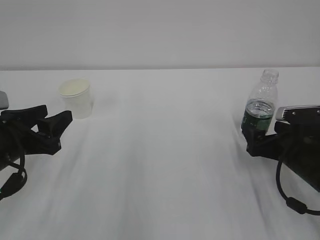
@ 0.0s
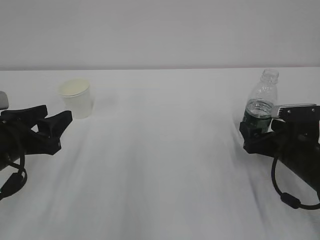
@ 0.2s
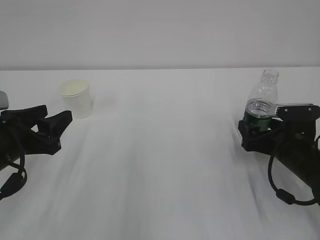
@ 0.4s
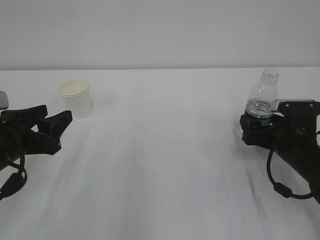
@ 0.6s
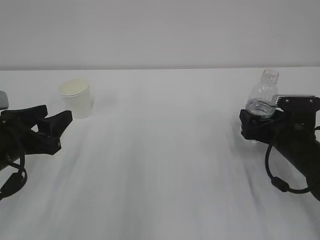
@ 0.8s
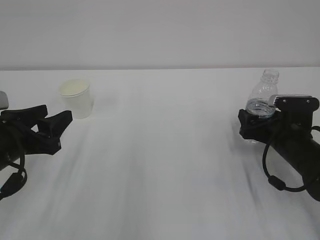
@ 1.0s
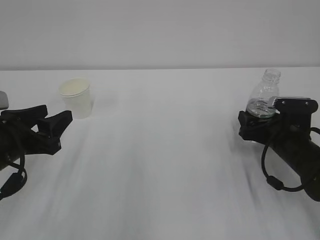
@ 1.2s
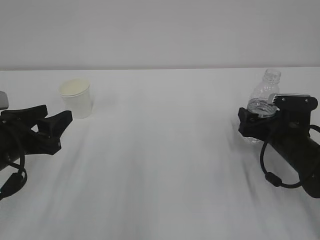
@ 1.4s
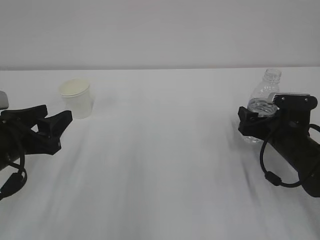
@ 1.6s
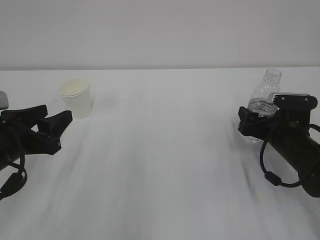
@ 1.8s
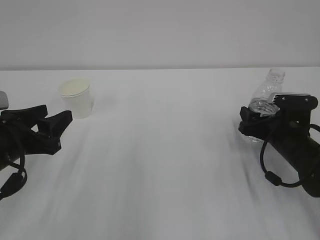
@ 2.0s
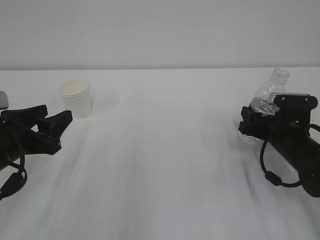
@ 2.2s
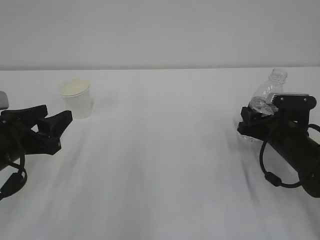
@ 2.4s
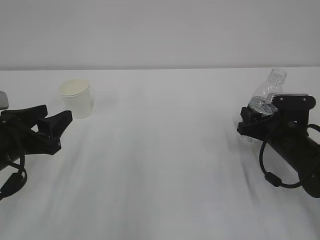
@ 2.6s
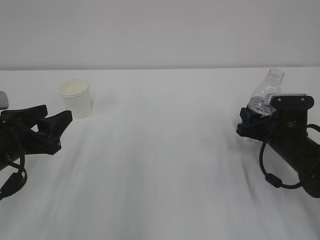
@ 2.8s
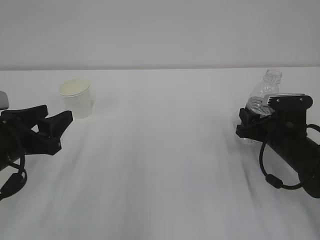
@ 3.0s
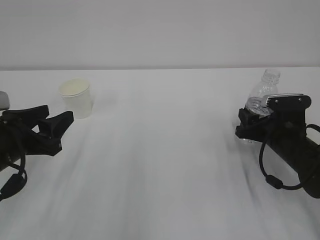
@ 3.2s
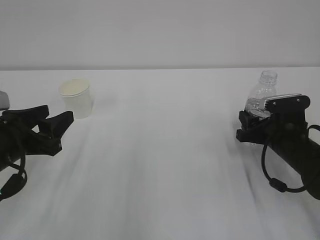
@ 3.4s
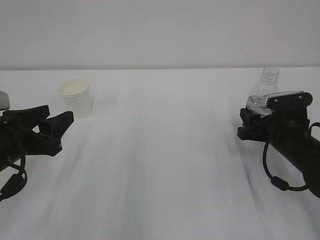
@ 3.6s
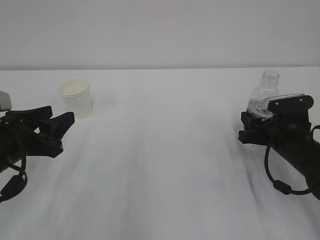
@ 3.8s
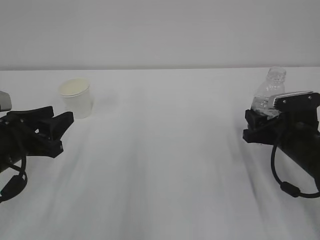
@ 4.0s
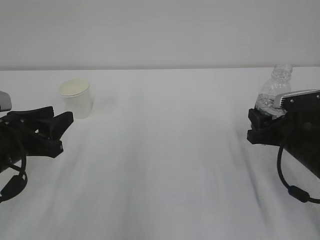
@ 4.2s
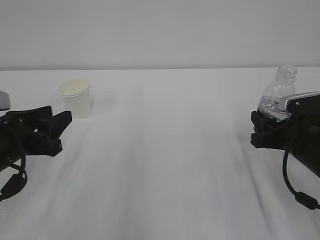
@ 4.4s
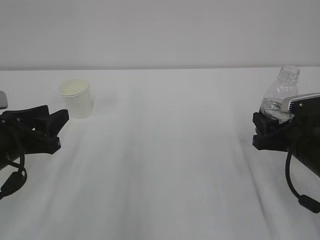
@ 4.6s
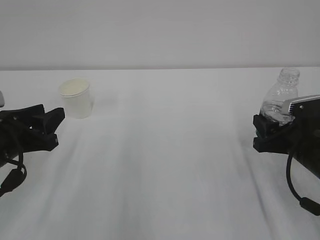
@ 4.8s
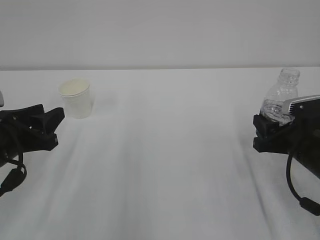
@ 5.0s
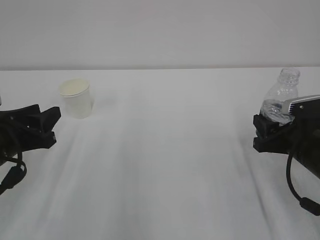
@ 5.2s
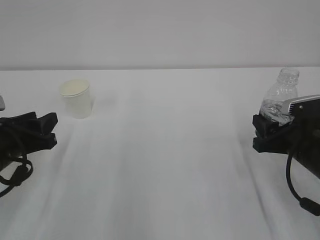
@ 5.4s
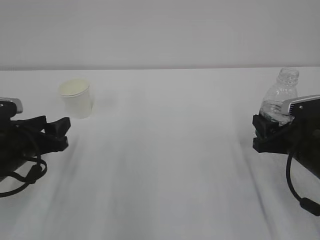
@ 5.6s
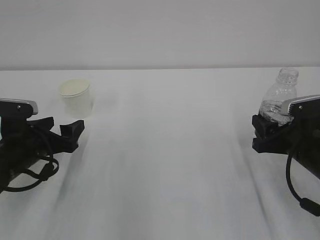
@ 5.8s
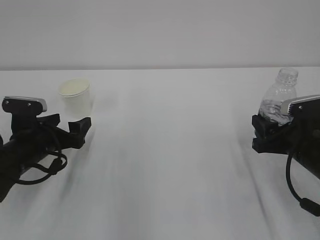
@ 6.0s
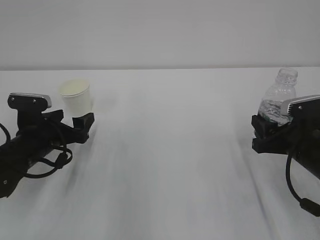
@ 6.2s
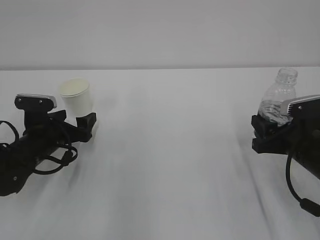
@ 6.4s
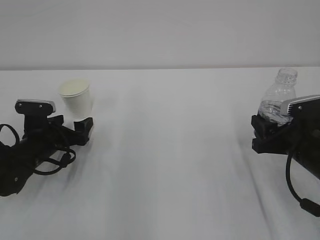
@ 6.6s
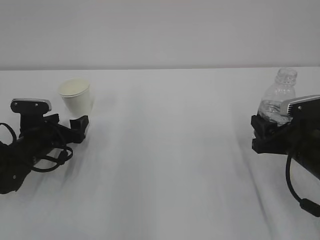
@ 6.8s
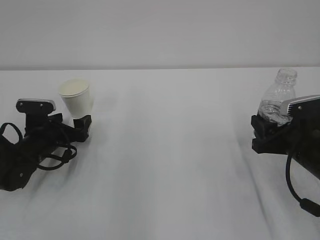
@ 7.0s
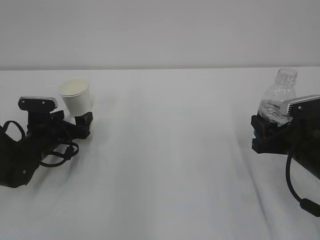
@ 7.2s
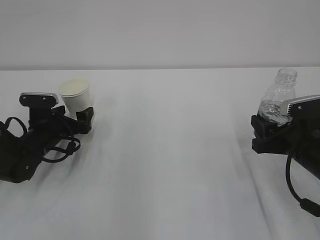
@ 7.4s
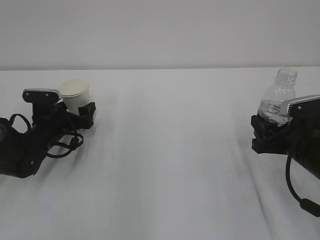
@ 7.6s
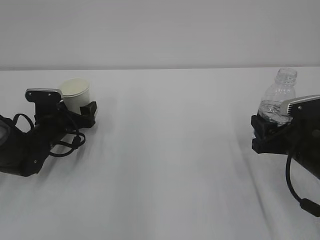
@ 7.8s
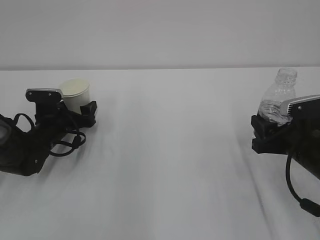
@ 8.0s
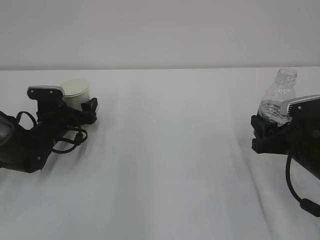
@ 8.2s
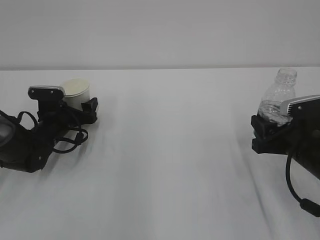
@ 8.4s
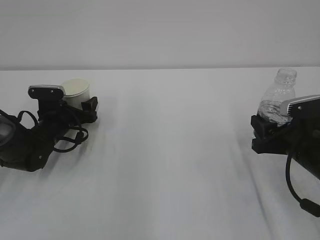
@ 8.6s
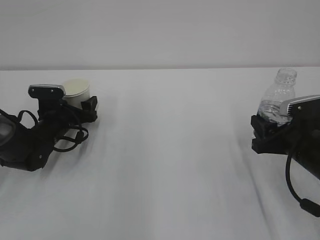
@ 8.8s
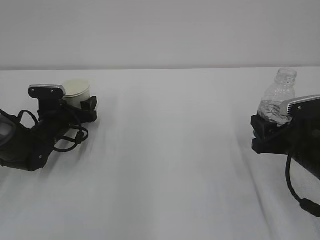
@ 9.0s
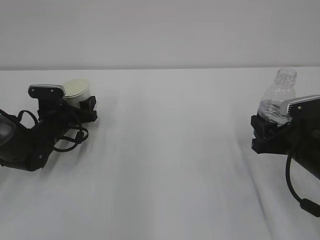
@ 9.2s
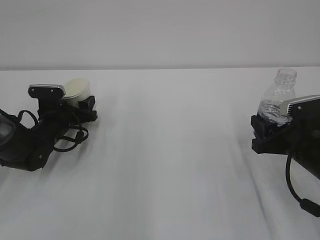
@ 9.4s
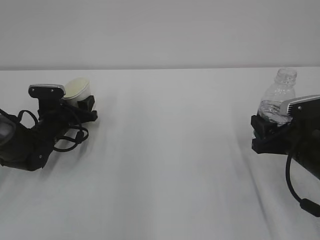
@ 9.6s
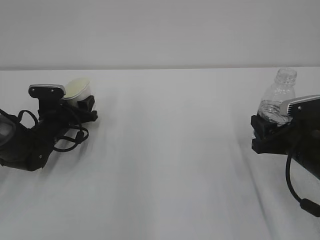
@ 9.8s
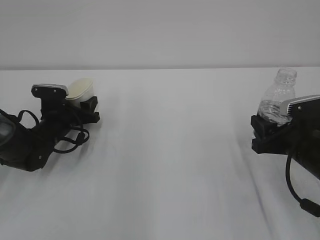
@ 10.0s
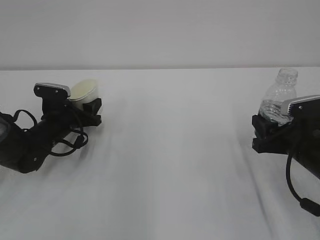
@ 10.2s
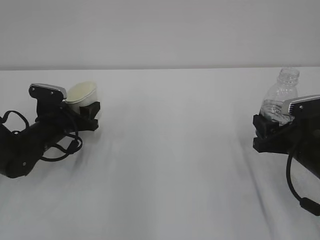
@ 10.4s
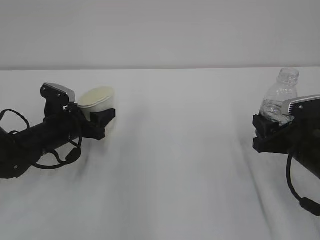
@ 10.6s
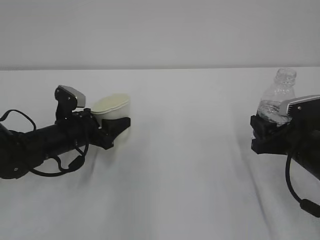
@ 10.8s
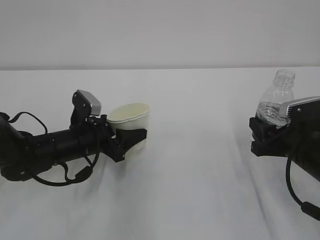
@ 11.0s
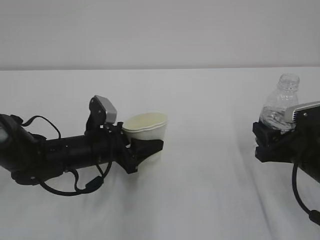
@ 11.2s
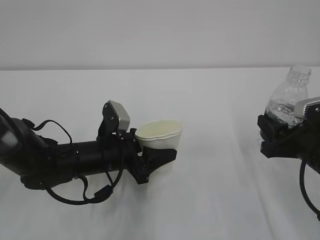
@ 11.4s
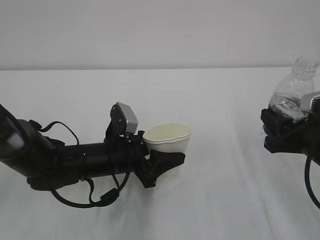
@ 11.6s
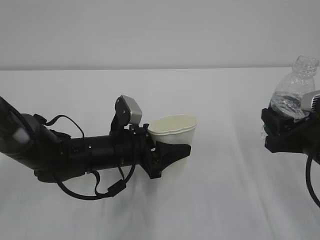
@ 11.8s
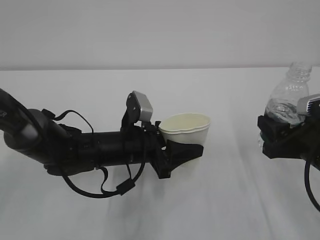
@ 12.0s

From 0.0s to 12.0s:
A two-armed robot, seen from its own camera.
From 0.0s to 1.6s: The right gripper shifts by approximately 5 cm.
From 1.6s to 3.0s: The right gripper closes up.
From 3.0s to 4.4s: The right gripper travels backward by some 5 cm.
From 4.4s to 6.0s: The left gripper heads forward and downward, covering about 10 cm, and opens up.
From 6.0s to 7.6s: The left gripper goes approximately 10 cm forward.
From 7.6s to 9.0s: The grippers move only a little.
From 9.0s to 10.4s: The left gripper closes its fingers.
From 10.4s to 12.0s: The left gripper shifts approximately 20 cm to the right and backward.

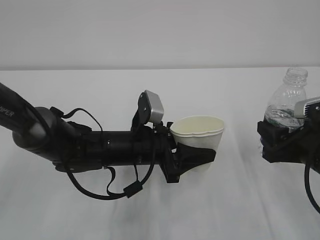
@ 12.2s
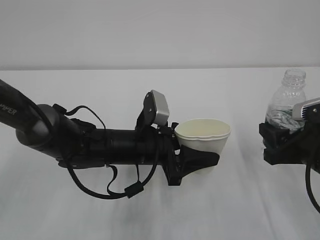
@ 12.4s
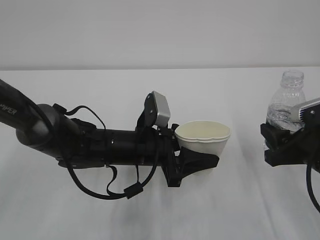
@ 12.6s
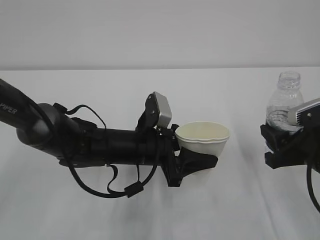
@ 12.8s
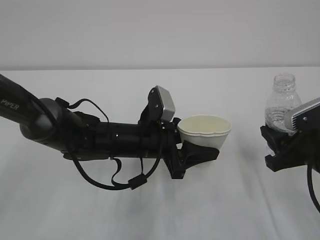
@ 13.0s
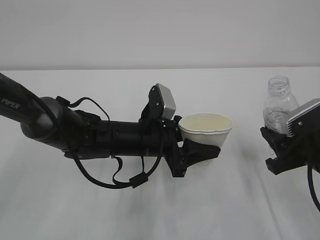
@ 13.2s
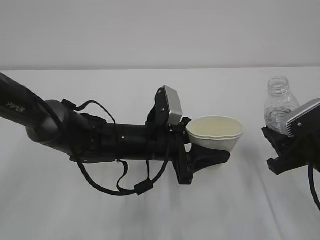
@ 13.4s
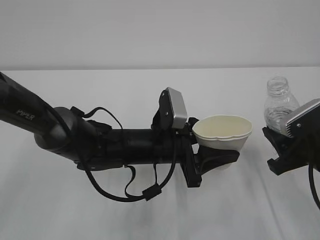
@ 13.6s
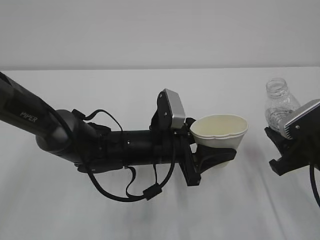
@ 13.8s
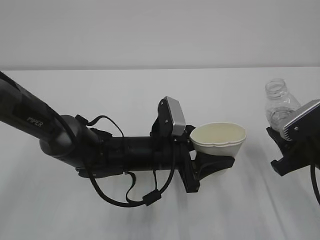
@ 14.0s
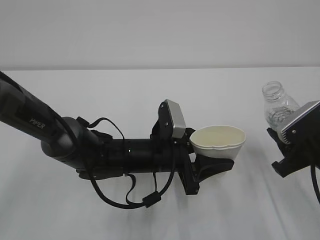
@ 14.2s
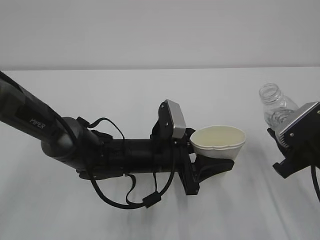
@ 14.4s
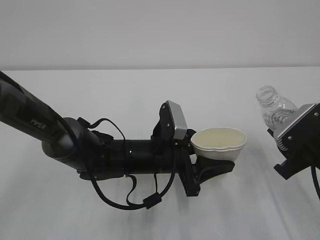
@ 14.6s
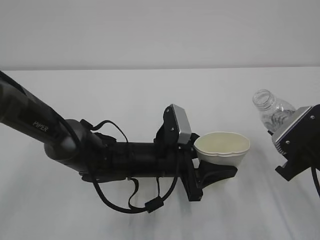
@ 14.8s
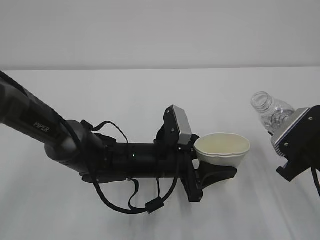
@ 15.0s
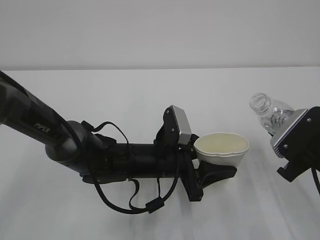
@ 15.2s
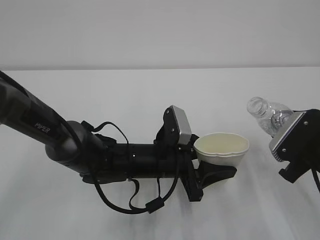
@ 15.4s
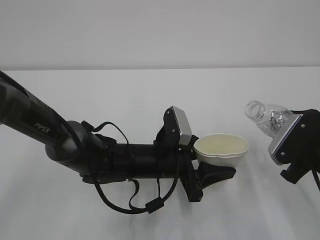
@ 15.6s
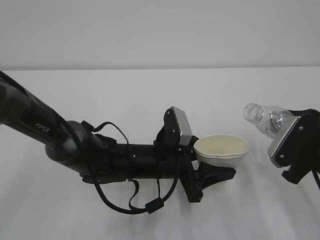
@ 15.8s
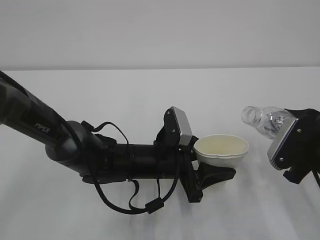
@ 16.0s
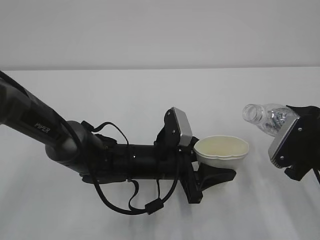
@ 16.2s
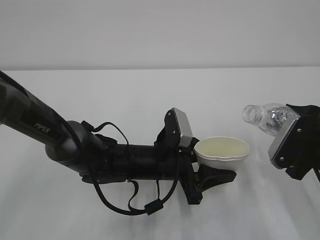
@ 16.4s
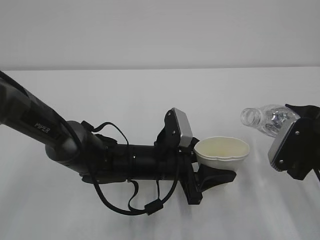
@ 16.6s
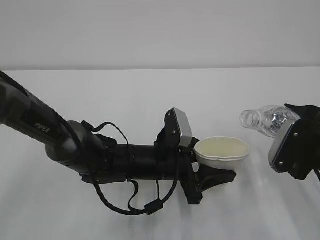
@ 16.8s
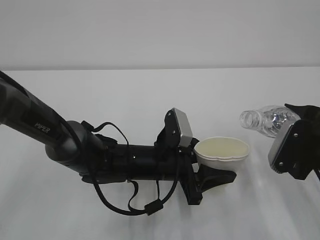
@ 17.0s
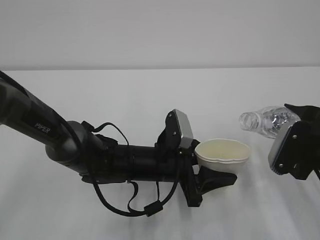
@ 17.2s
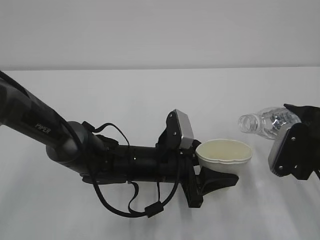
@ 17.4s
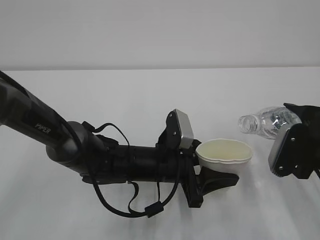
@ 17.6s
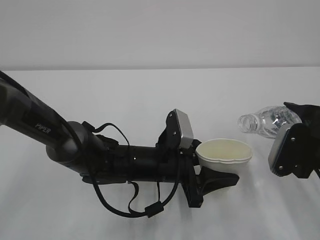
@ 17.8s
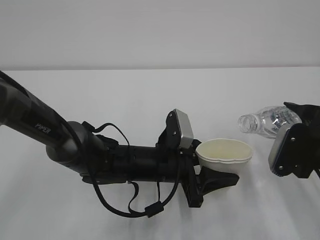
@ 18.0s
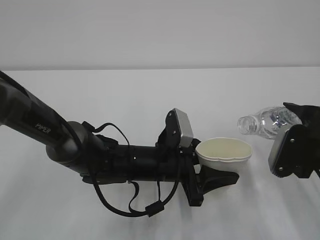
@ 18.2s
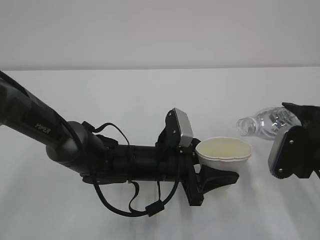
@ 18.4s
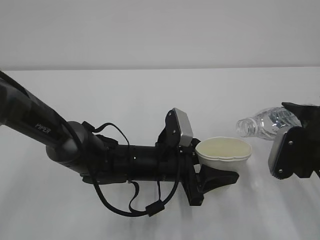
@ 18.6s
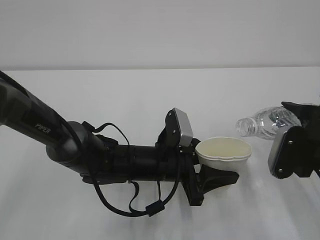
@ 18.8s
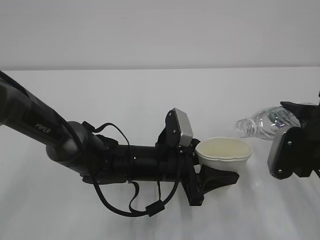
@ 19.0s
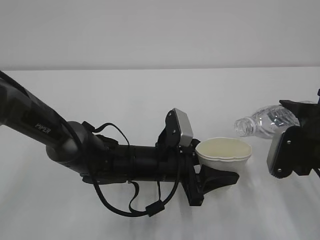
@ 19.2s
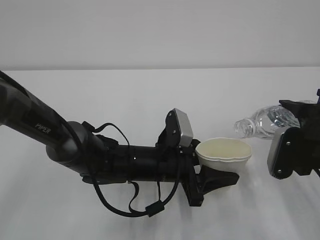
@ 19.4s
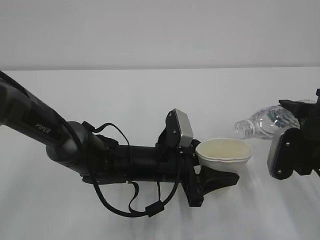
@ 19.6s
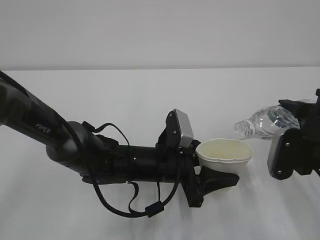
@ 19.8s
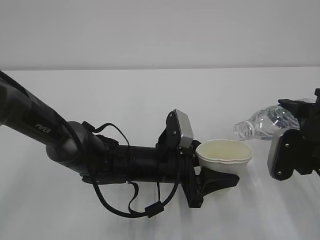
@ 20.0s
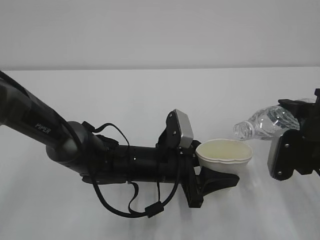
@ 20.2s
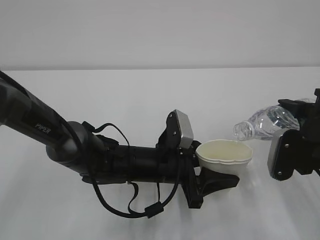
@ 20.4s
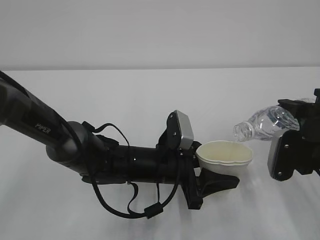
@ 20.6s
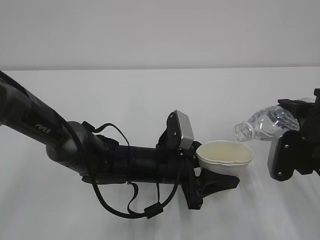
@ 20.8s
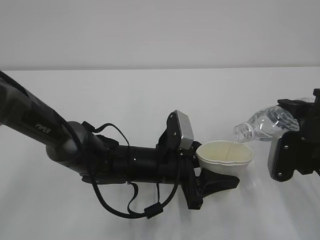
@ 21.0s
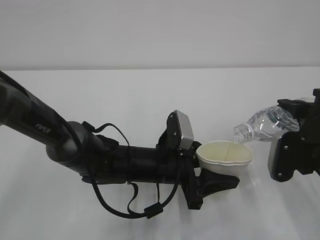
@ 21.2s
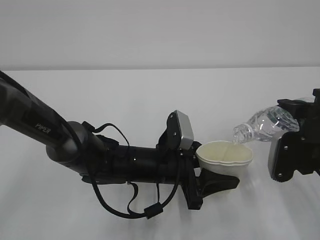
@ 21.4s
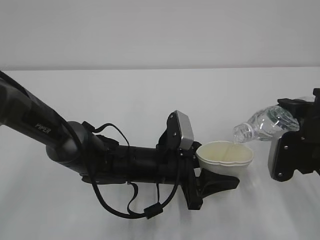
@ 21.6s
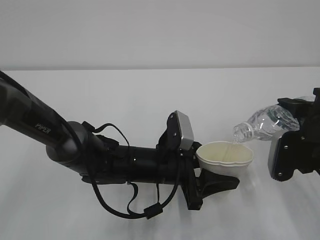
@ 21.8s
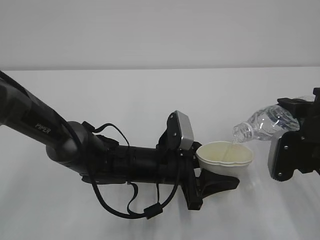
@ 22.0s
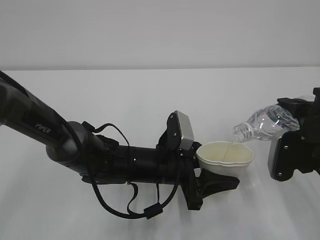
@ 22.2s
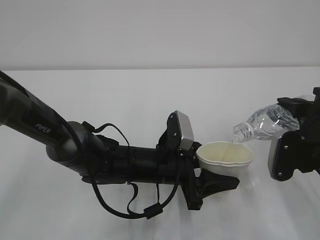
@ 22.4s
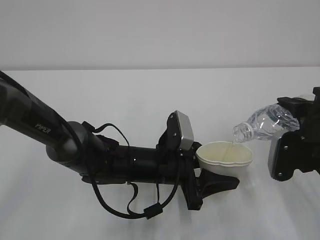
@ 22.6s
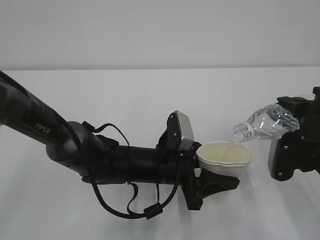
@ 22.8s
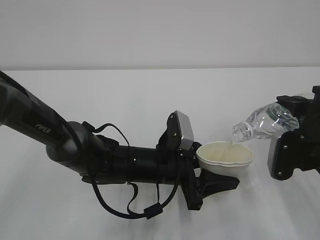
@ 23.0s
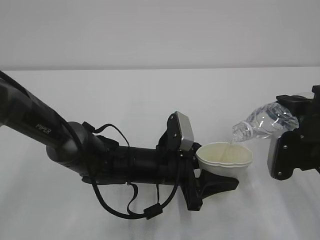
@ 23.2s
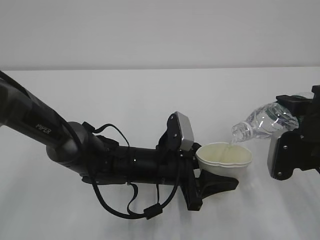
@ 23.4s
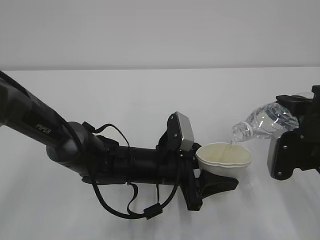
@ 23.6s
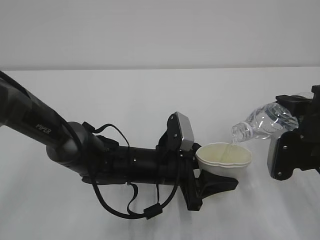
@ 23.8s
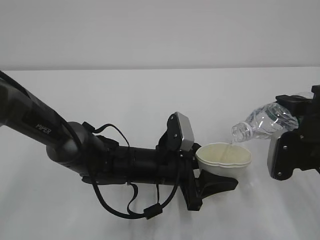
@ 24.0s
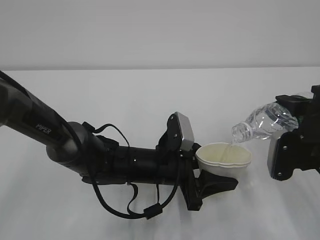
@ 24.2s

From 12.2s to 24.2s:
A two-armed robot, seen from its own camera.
From 15.2s to 16.6s: The grippers make only small movements.
From 16.6s to 19.8s: The grippers make only small movements.
From 19.8s to 21.2s: Both grippers stay about where they are.
From 21.2s to 24.2s: The two grippers keep their place.
